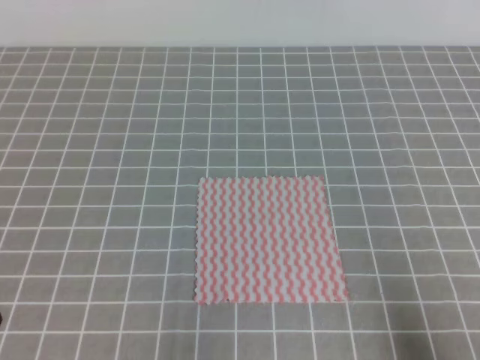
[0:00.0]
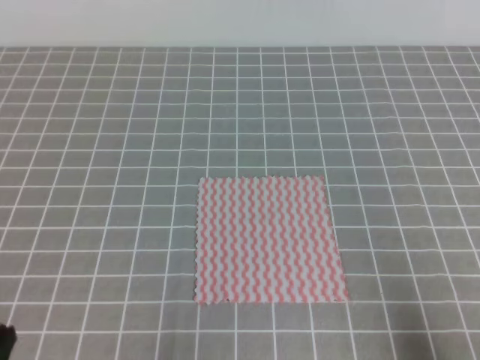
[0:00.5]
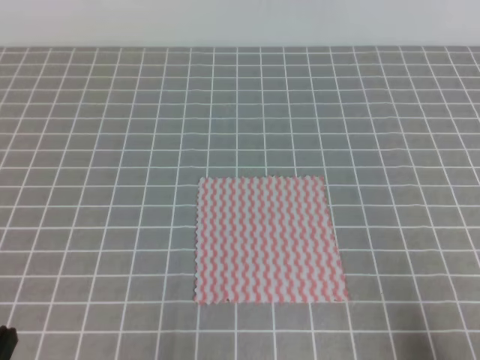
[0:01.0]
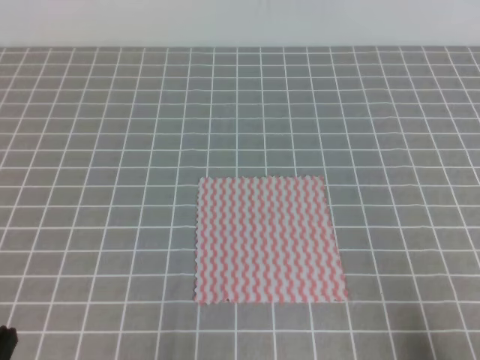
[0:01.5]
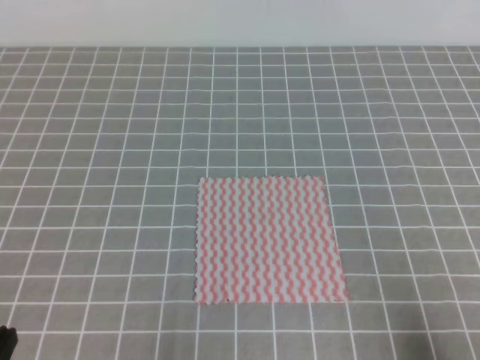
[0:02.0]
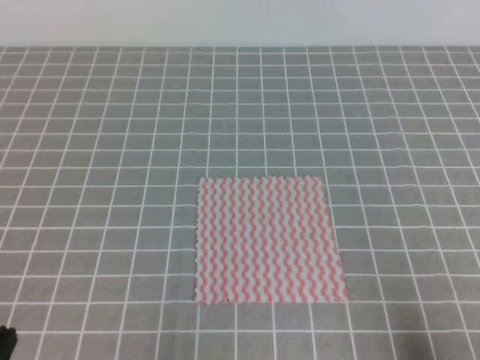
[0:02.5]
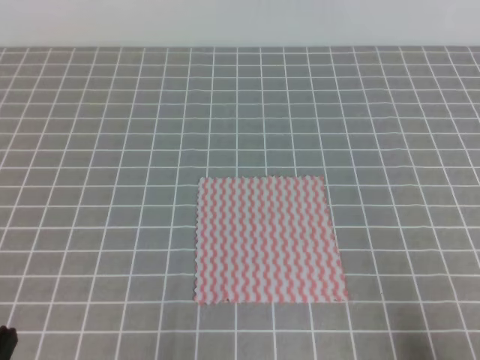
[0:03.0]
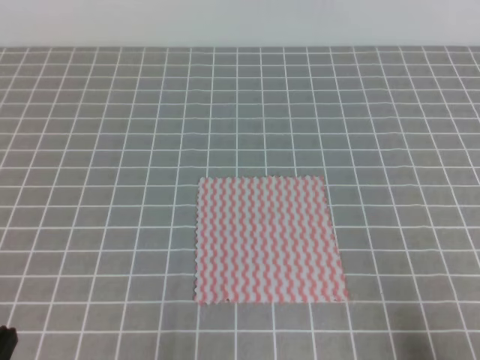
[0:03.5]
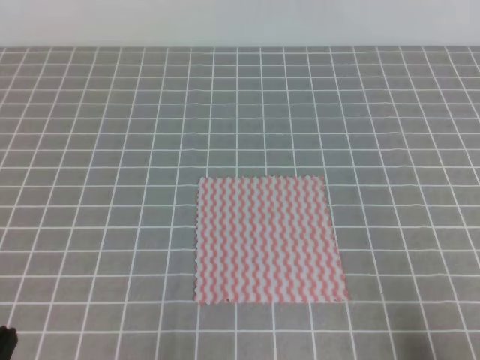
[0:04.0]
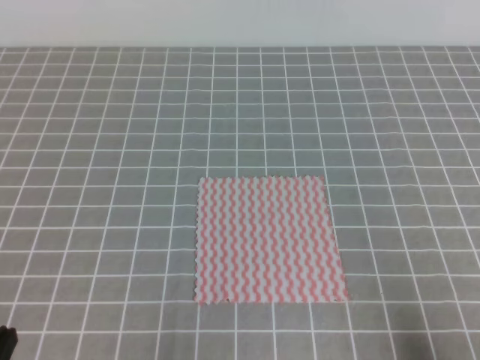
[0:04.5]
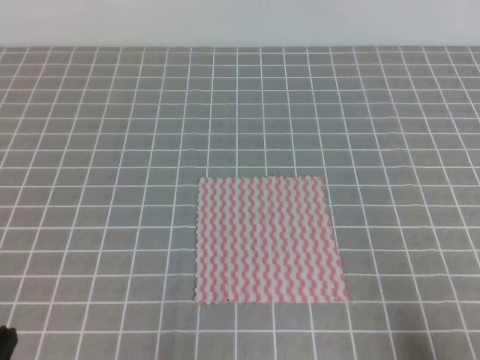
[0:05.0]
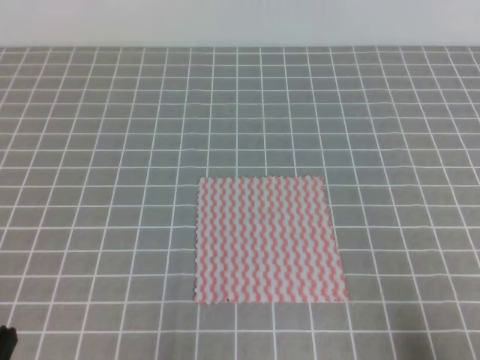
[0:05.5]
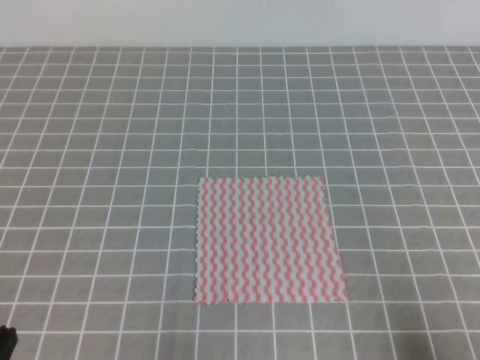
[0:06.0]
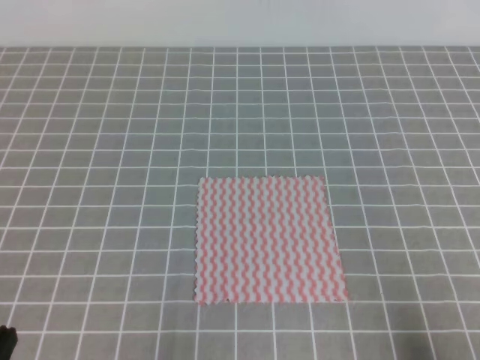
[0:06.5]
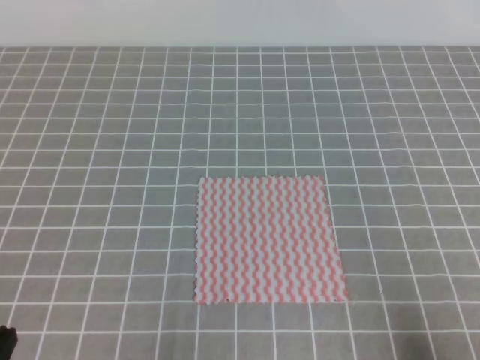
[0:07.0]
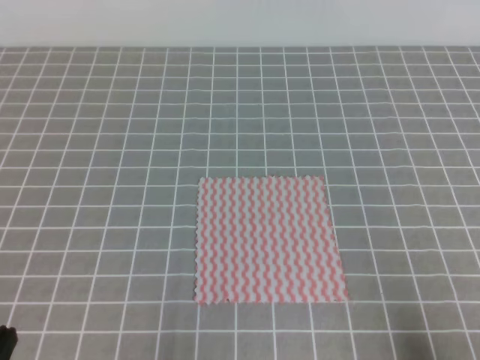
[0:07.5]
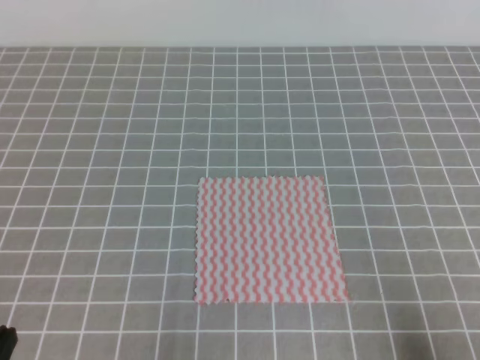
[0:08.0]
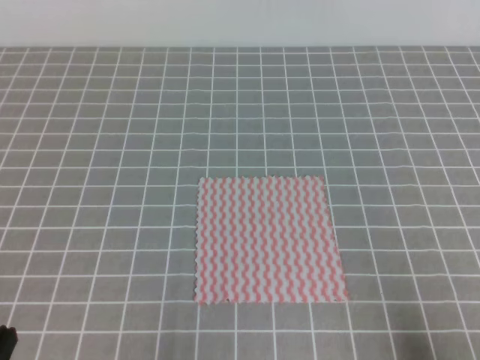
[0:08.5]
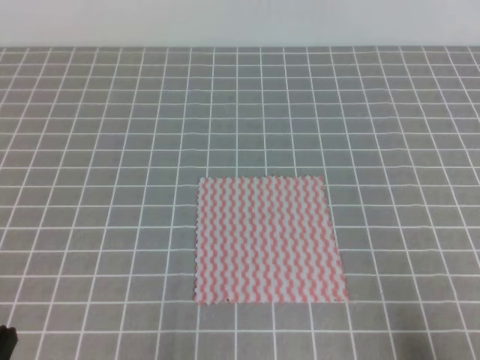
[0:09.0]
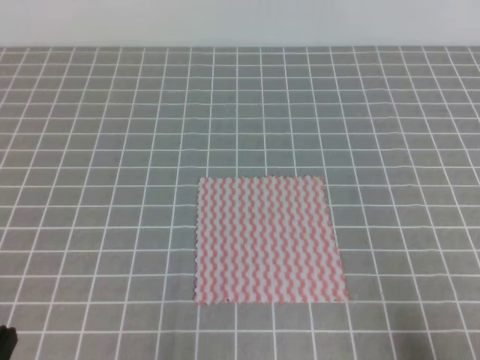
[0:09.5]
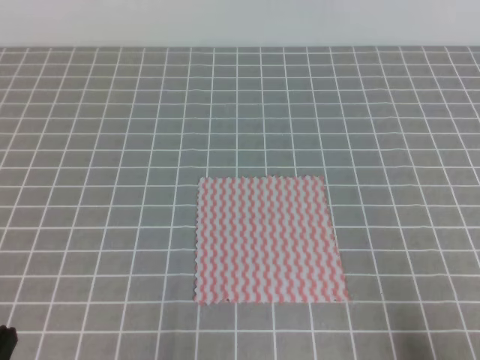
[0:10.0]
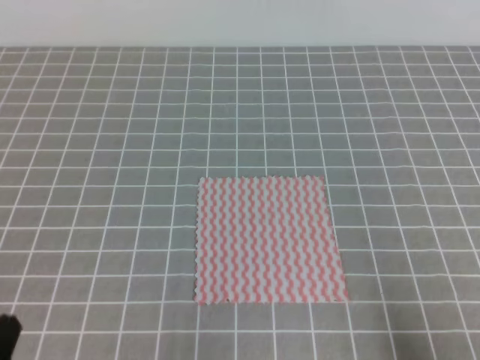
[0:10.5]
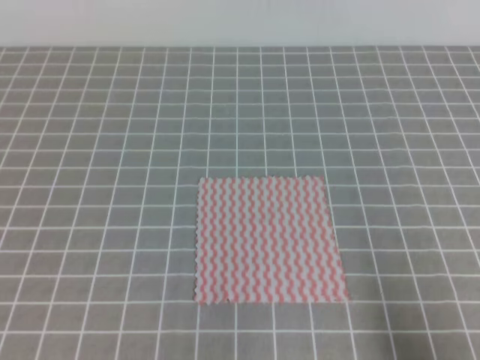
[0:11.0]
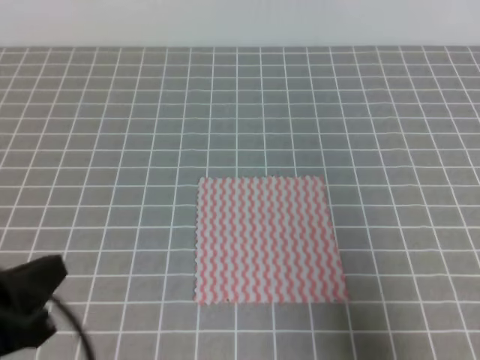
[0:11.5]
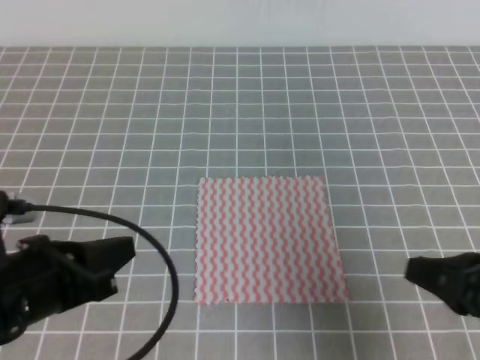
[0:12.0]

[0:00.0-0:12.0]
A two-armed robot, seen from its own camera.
0:02.0 to 0:10.0: The two grippers keep their place.
0:10.0 to 0:12.0: The right gripper is displaced forward, to the left and upward by approximately 15 cm; the left gripper goes some 15 cm forward, upward and to the right.

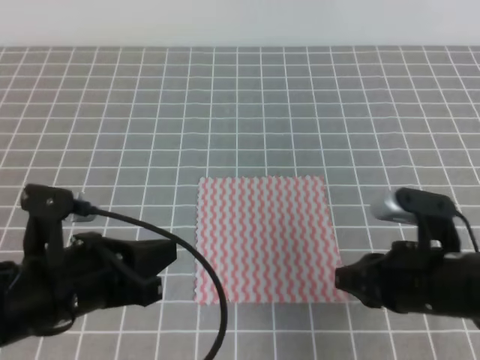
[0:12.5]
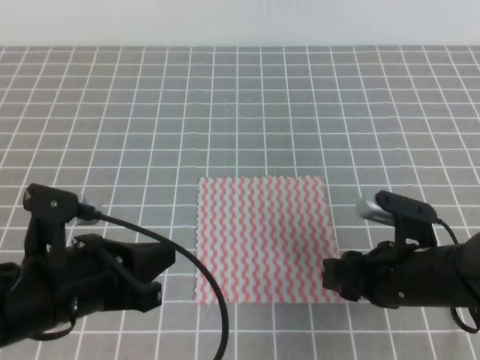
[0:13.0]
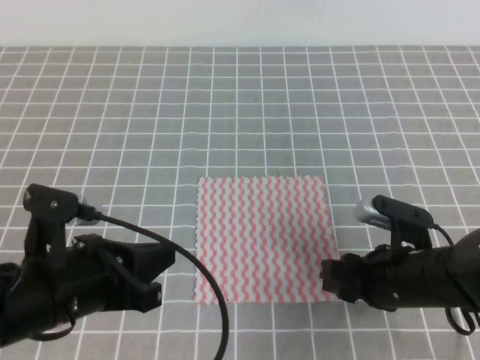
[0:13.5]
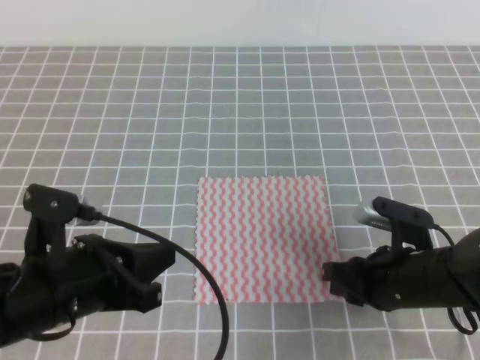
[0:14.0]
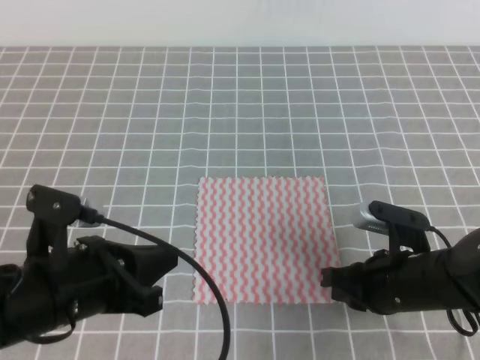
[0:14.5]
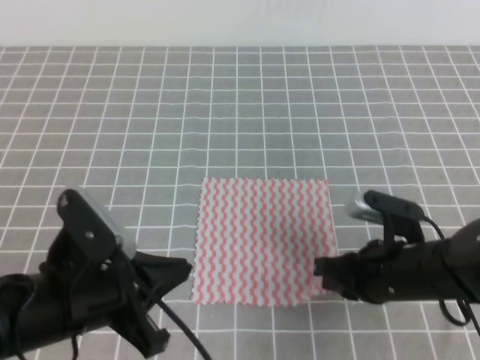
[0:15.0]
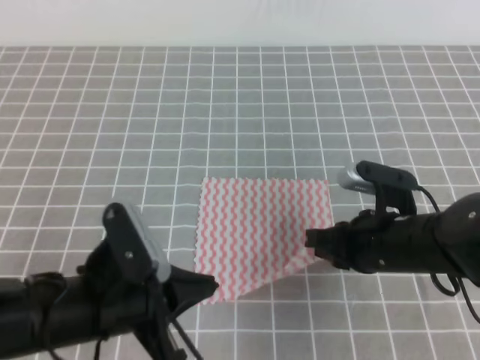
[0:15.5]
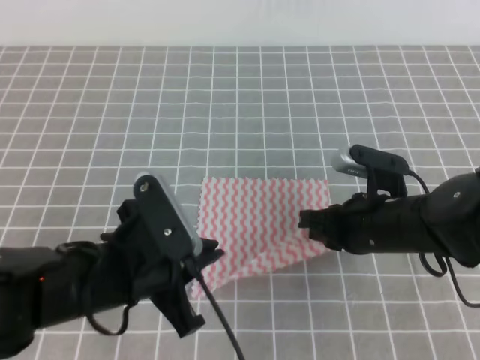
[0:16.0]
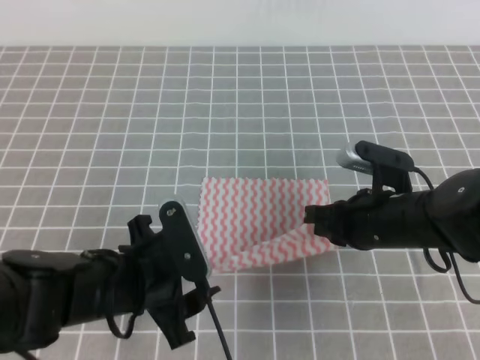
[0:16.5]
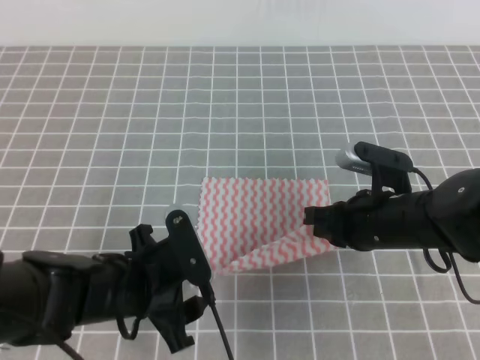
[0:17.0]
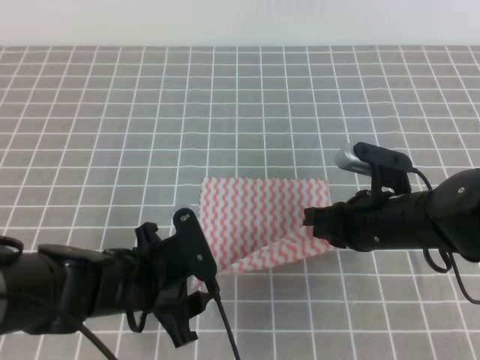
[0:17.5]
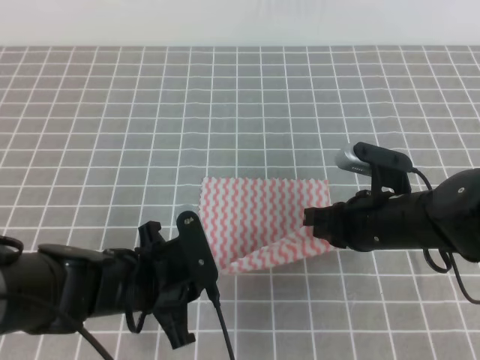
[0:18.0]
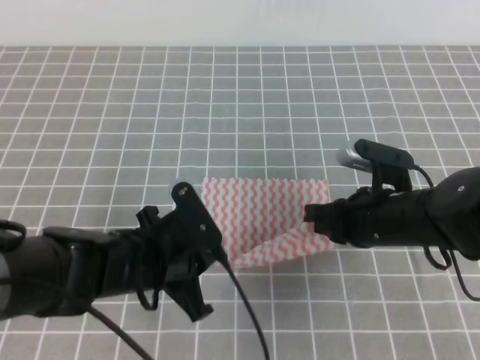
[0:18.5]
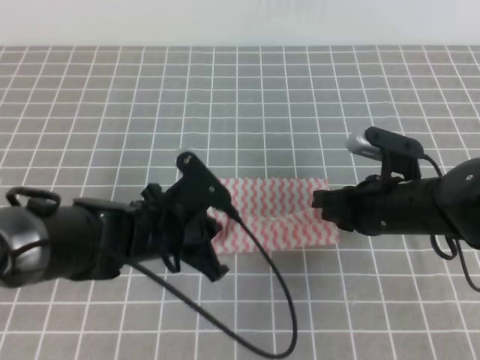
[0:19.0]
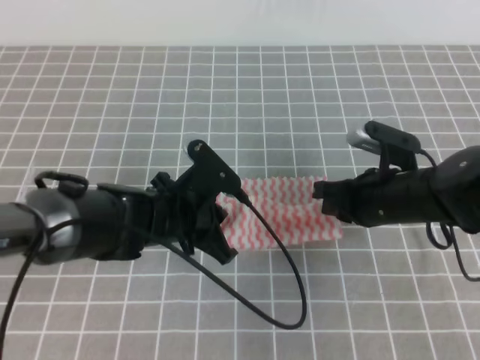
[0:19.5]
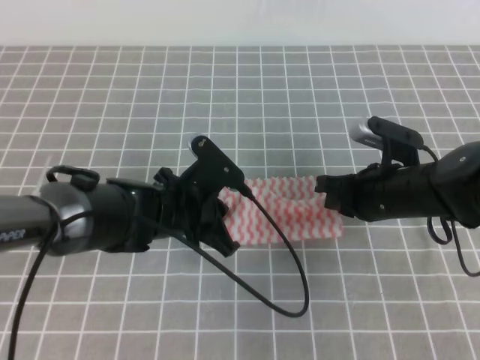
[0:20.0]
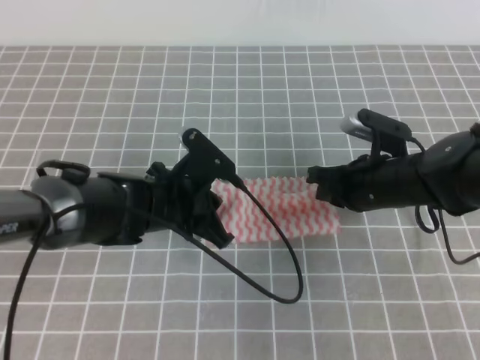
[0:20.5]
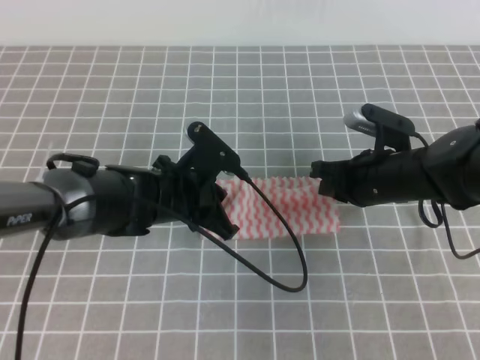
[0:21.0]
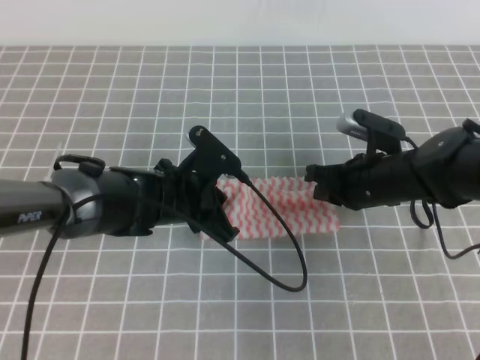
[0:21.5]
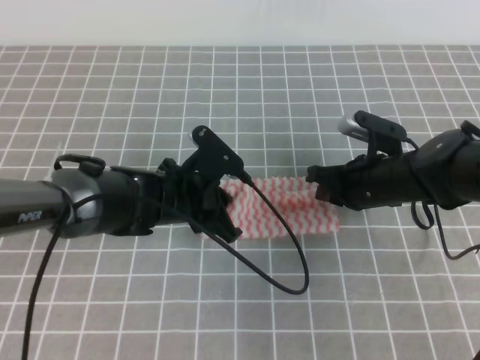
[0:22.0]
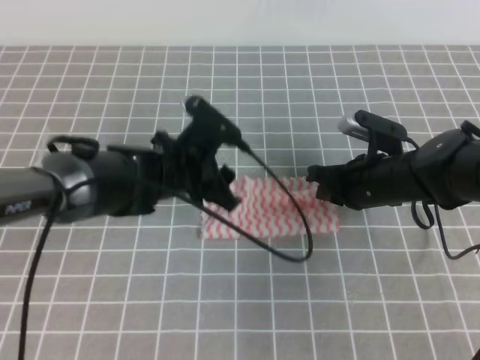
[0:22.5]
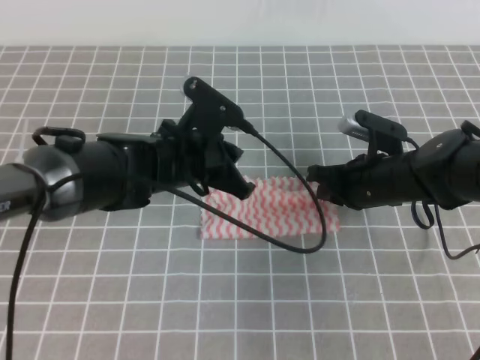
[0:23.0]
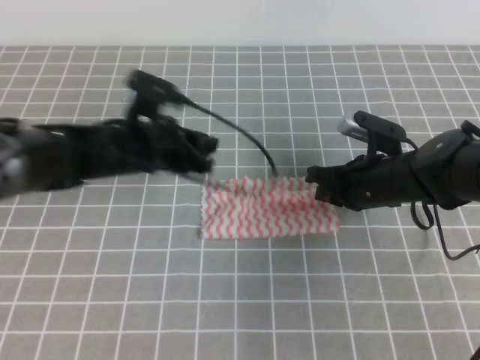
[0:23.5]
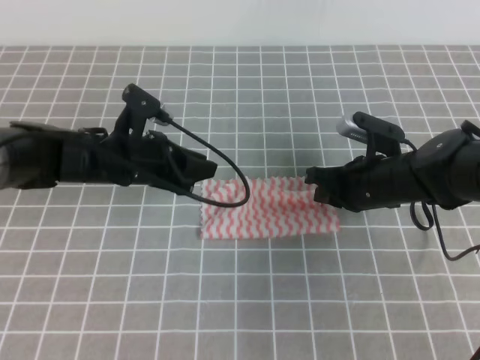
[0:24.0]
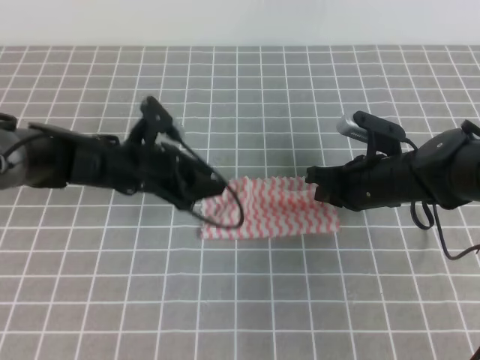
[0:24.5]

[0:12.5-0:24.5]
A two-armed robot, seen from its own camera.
0:12.5 to 0:14.5: The right gripper goes roughly 5 cm downward, and opens, then closes once more.
0:14.5 to 0:16.5: The left gripper shifts about 5 cm to the right, and opens up. The right gripper moves forward, about 5 cm.
0:16.5 to 0:18.5: The left gripper closes.
0:18.5 to 0:20.5: Both grippers move forward, roughly 5 cm.
0:20.5 to 0:22.5: The left gripper opens.
0:22.5 to 0:24.5: The left gripper moves to the left, approximately 5 cm, and closes, then opens again.

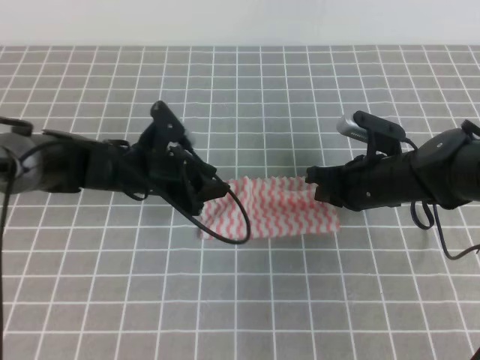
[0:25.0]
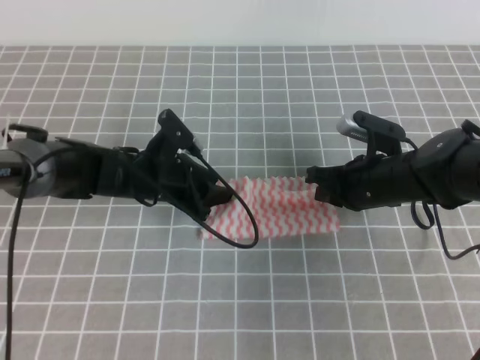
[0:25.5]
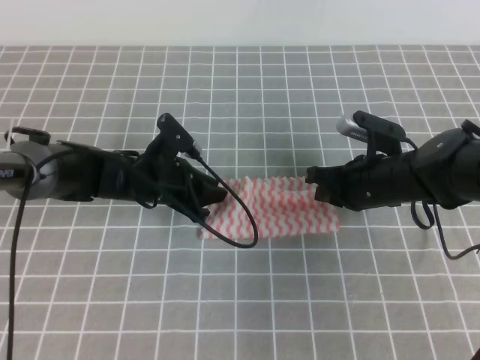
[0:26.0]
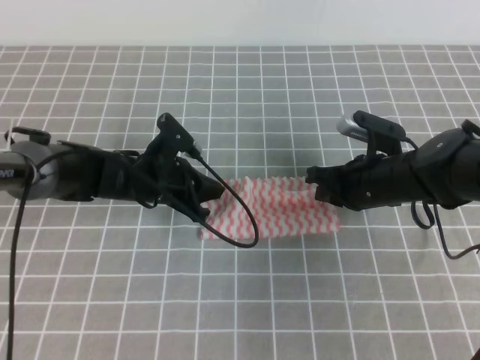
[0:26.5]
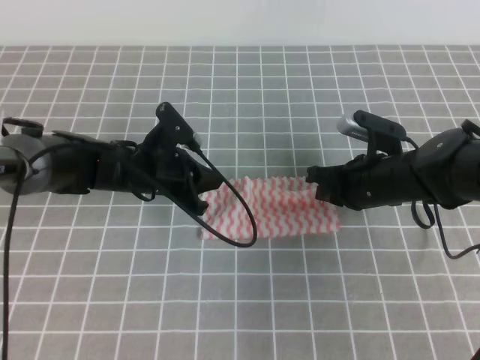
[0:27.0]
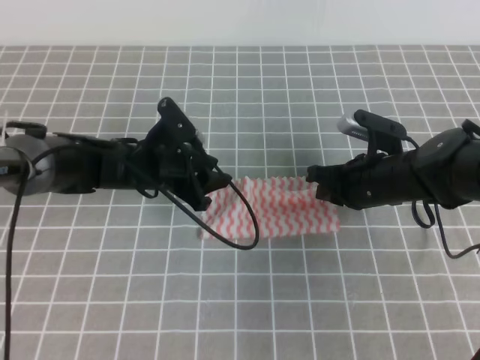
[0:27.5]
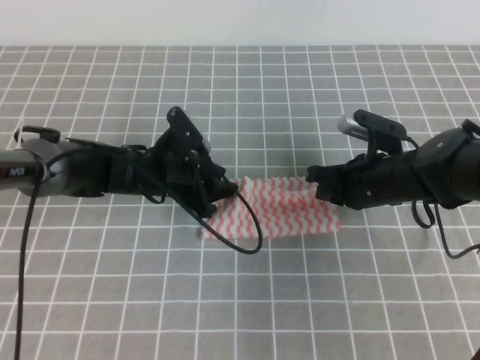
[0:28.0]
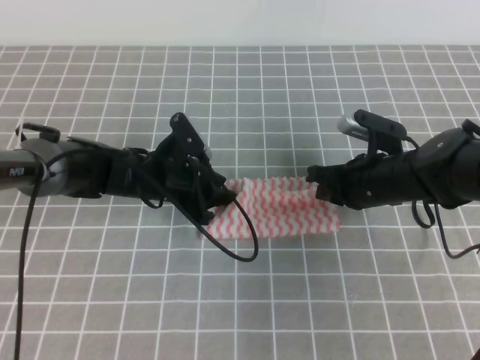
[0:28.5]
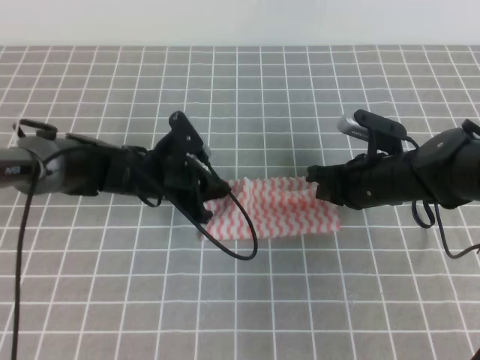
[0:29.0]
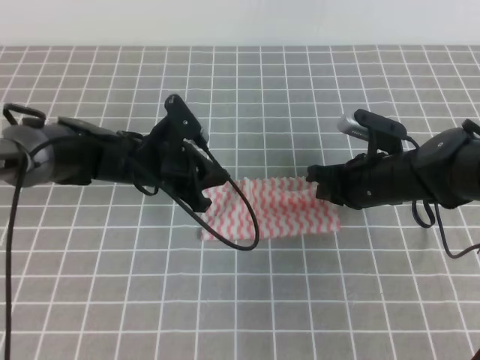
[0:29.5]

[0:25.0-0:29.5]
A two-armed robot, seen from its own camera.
0:25.0 to 0:27.0: The left gripper closes up.
0:27.0 to 0:29.5: The left gripper opens and closes again.
